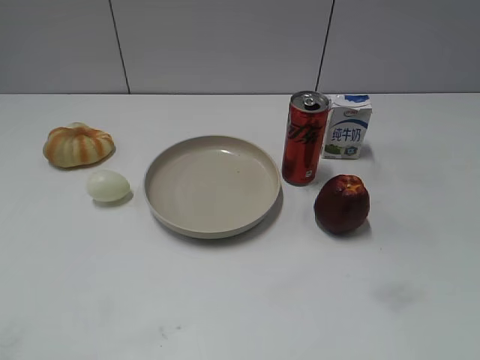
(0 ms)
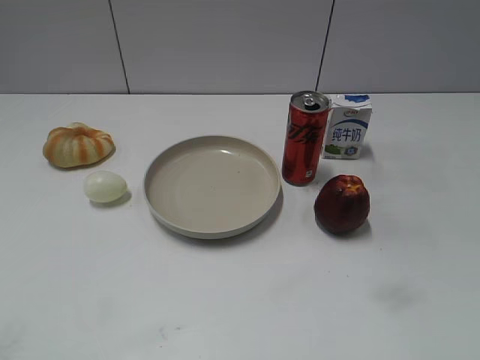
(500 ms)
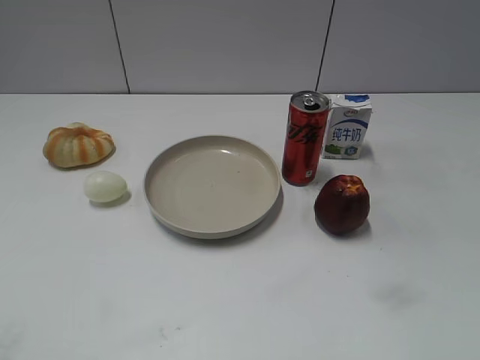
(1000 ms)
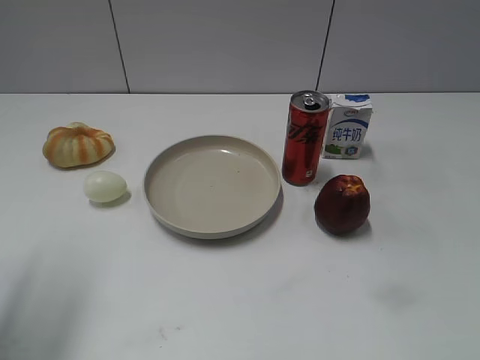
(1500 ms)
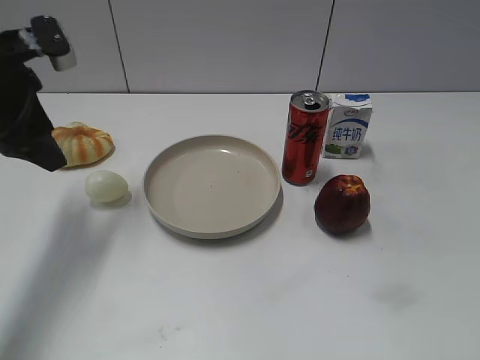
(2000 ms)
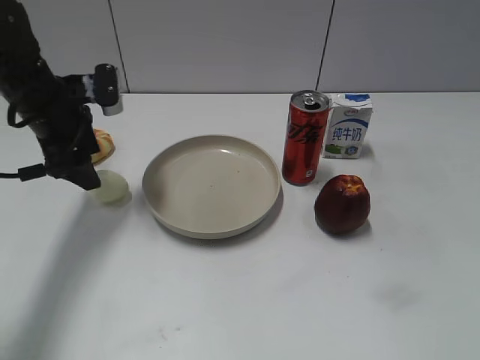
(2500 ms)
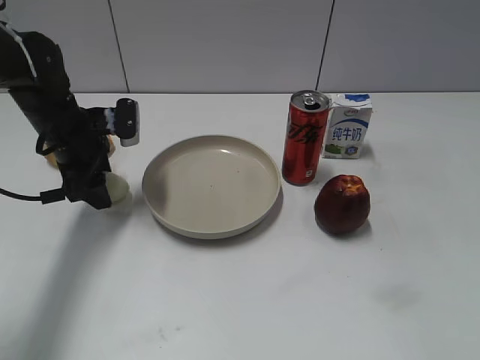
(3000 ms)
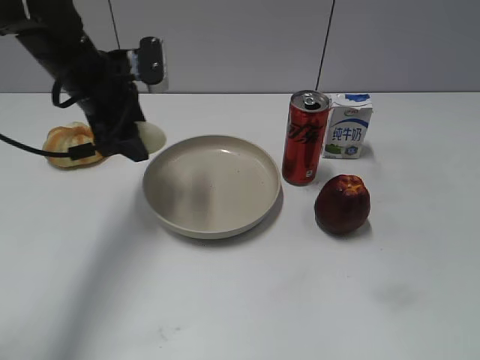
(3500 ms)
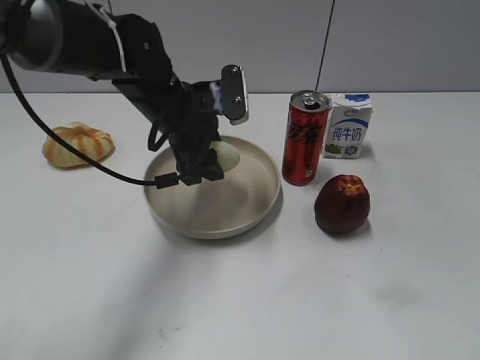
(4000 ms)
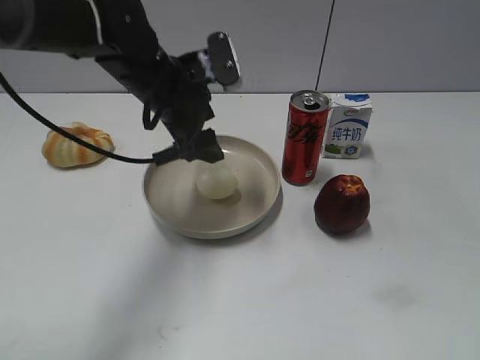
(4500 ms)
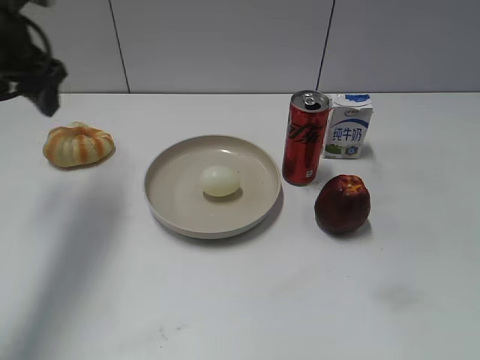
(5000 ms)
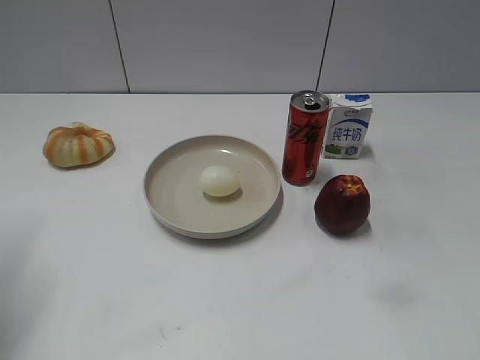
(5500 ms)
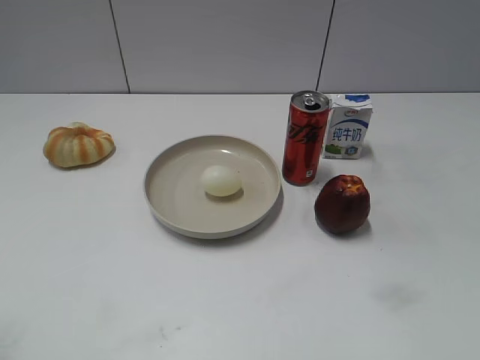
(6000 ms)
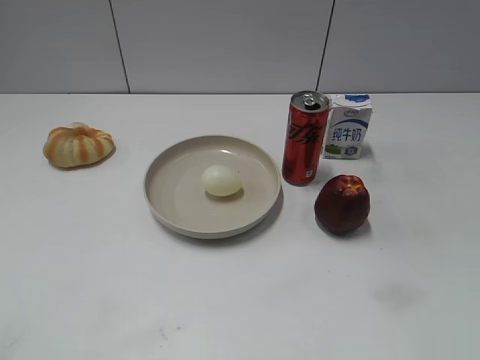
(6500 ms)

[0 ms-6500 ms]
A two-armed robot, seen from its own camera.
Step, 1000 ms to 2500 ms: Grasp the egg with left gripper.
Step, 3500 ms to 4500 ms: Place the egg on the plate with left gripper.
2000 ms to 4500 ms: The left gripper goes some 15 cm to the right, and closes and opens again.
4500 ms to 6500 ms: The left gripper travels backward and to the left by approximately 40 cm.
